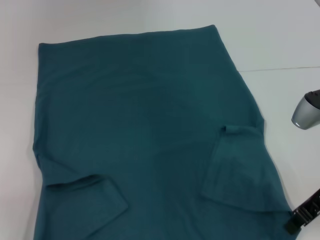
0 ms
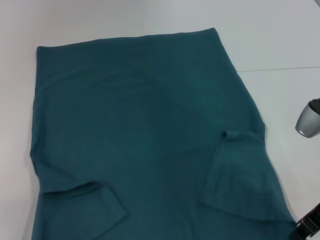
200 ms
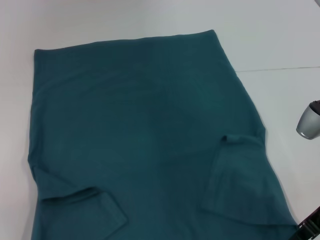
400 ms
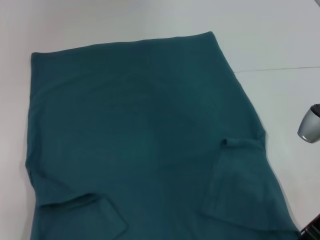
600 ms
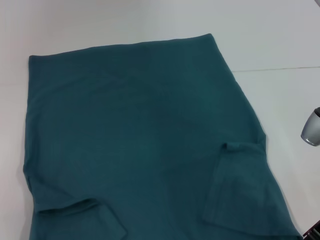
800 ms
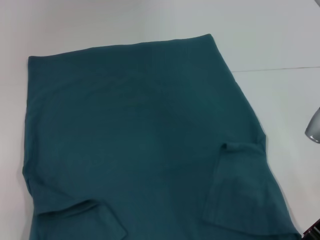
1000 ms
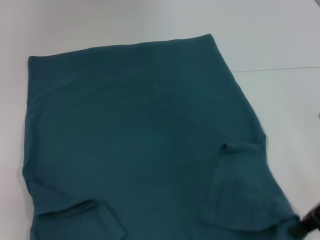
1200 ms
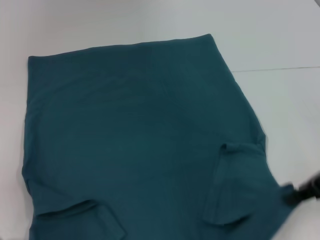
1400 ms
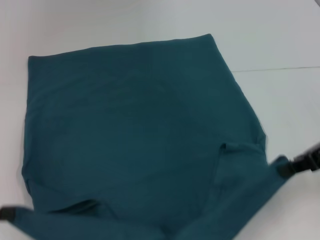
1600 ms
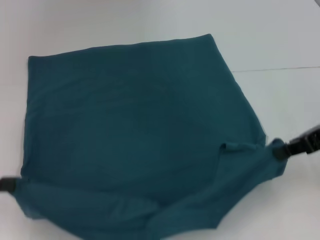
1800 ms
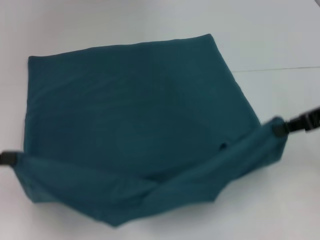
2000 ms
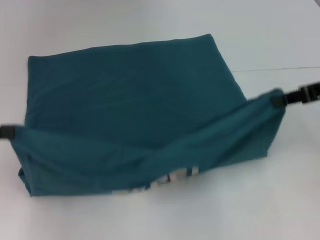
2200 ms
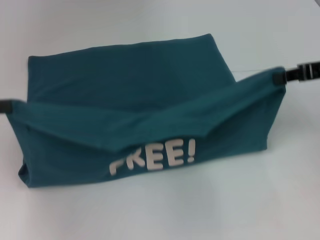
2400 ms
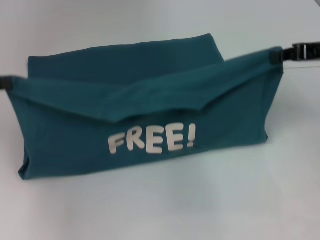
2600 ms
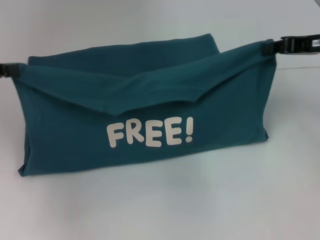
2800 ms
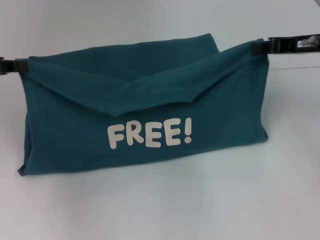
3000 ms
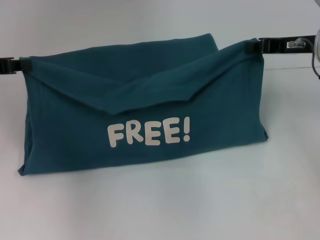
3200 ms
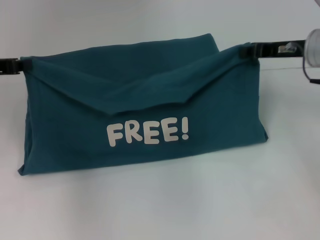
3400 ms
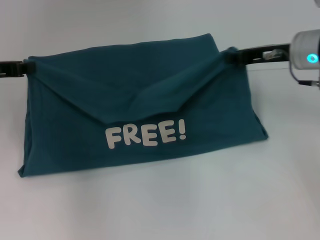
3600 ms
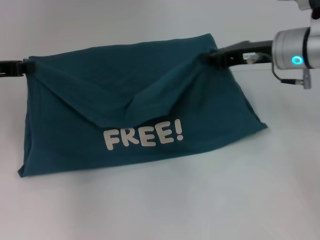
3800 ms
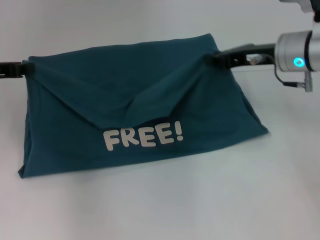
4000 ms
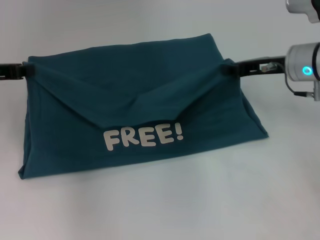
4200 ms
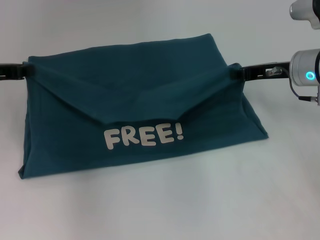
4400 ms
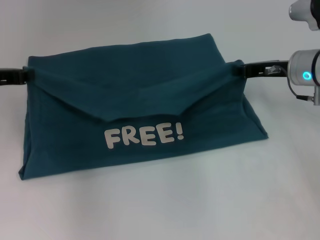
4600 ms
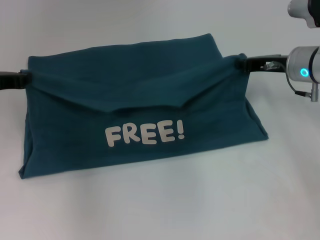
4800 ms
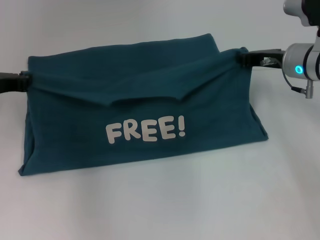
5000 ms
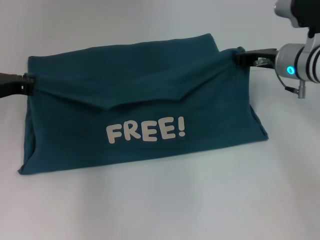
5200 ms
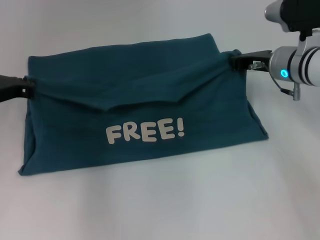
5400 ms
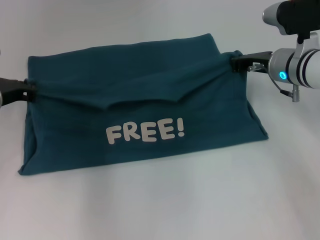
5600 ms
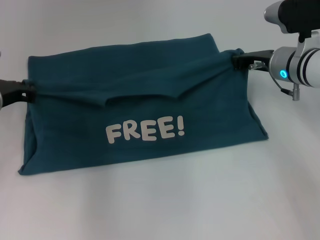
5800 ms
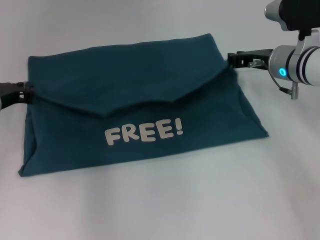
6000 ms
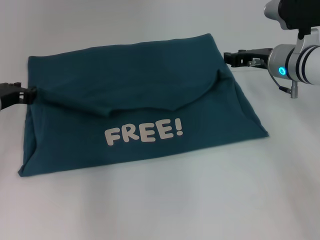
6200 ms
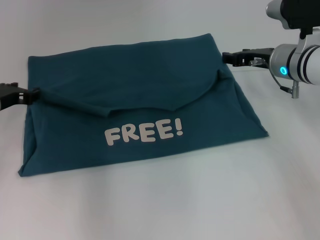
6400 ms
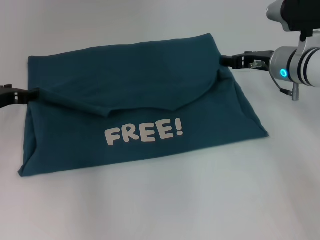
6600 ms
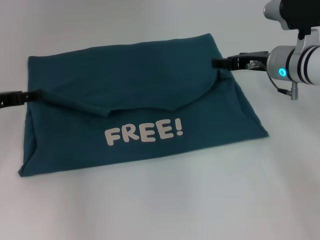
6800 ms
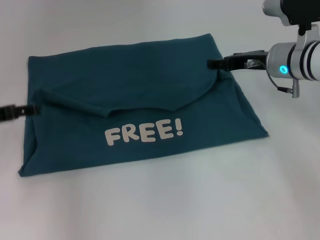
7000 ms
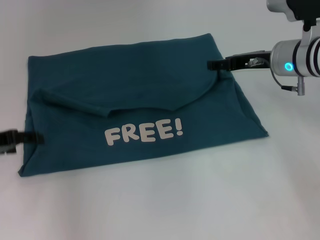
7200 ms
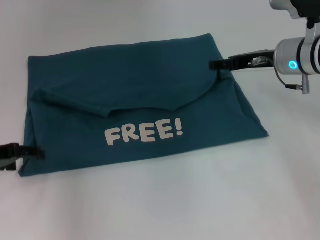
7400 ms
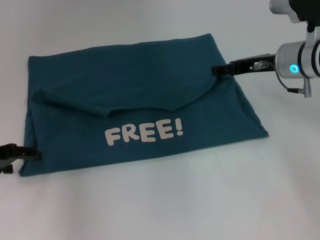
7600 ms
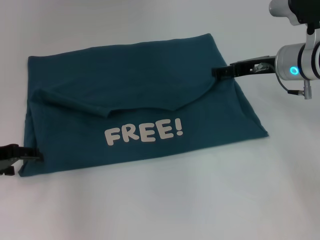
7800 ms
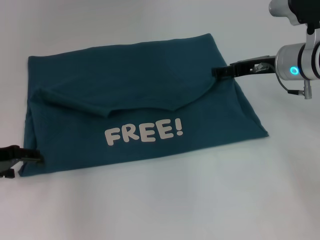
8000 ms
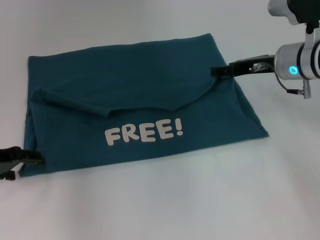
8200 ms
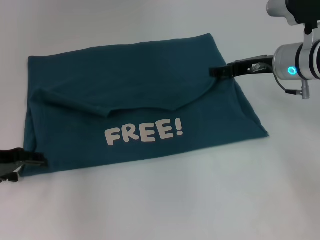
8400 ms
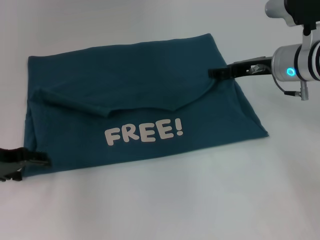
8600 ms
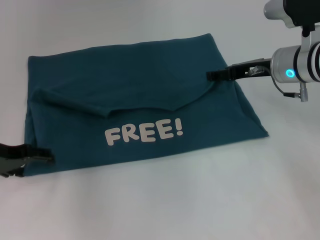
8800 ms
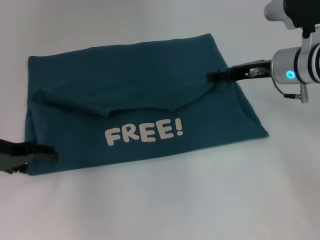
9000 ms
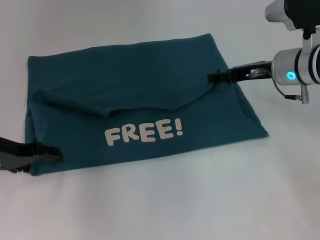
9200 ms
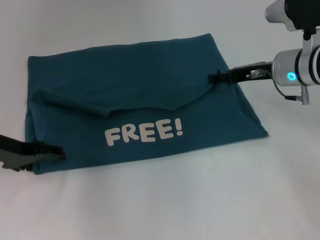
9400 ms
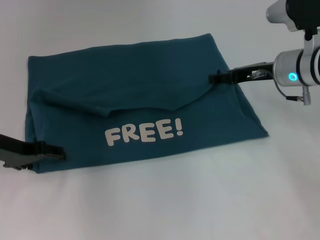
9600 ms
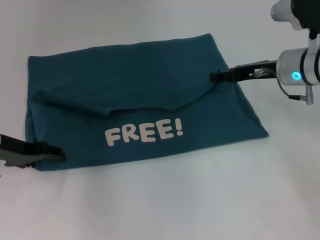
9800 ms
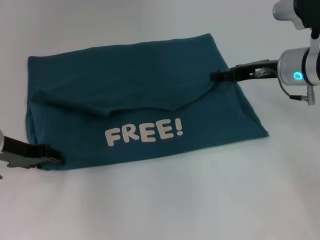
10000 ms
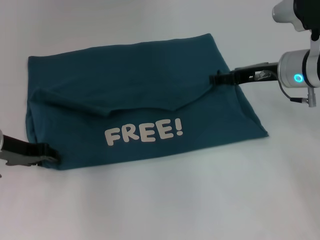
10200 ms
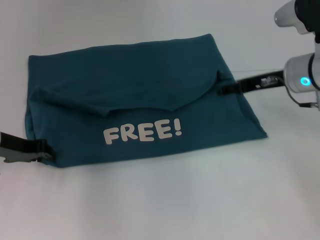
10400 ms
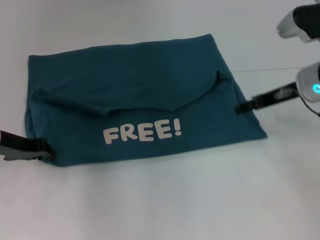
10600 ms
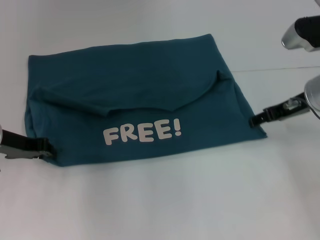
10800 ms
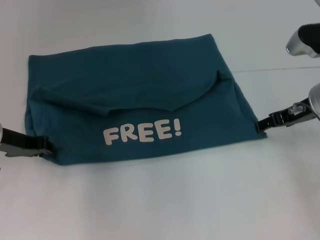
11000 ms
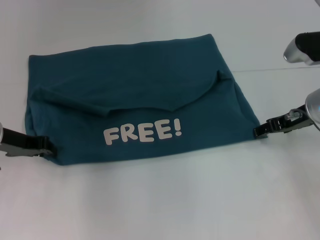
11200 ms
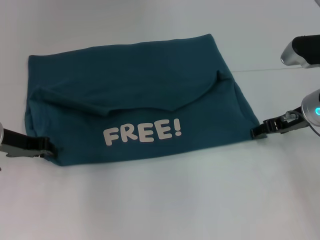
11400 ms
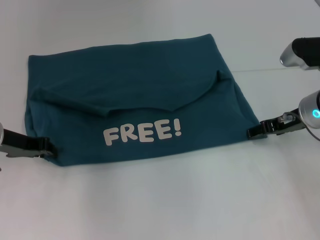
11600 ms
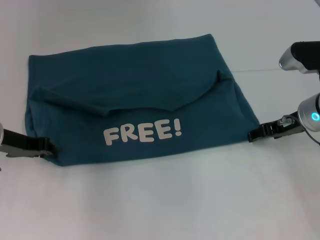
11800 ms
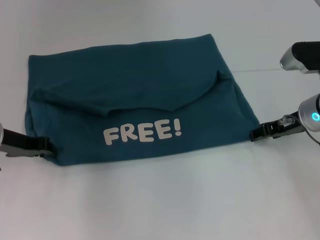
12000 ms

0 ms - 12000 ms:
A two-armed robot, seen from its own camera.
Step, 0 ms - 6800 ms: Fold the clothes to the left.
Step, 0 ms - 6800 ms: Fold the clothes to the right.
0 ms - 1600 ms: The grippers both shift upward by roughly 5 cm.
1600 ms - 3000 ms: The left gripper is displaced forward and upward by some 15 cm; the right gripper is displaced forward by some 10 cm.
3000 ms - 4400 ms: The right gripper moves downward, roughly 5 cm.
4400 ms - 6000 ms: The left gripper goes roughly 5 cm downward.
6000 ms - 7600 ms: The left gripper heads backward, covering roughly 5 cm, and opens its fingers; the right gripper opens its fingers.
7600 ms - 9000 ms: The grippers move only a little.
9000 ms - 10400 ms: The left gripper closes.
10400 ms - 12000 ms: The right gripper changes place by approximately 5 cm.

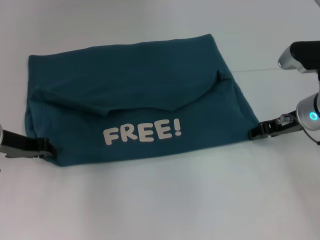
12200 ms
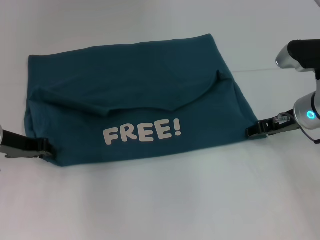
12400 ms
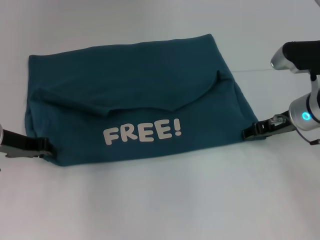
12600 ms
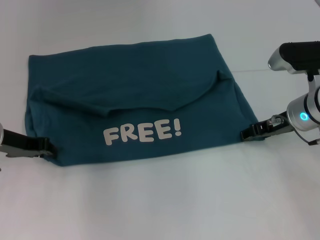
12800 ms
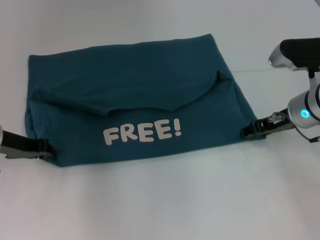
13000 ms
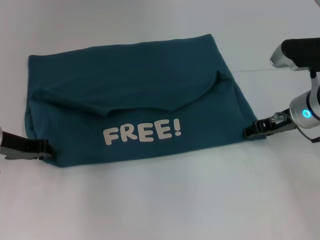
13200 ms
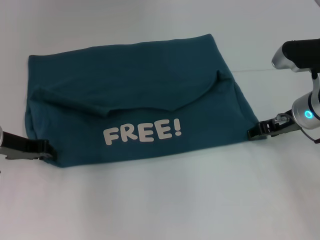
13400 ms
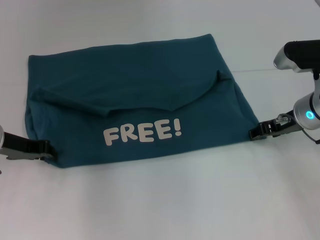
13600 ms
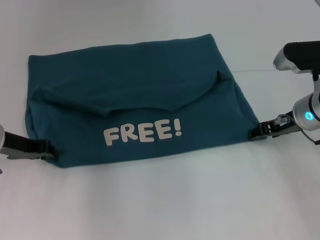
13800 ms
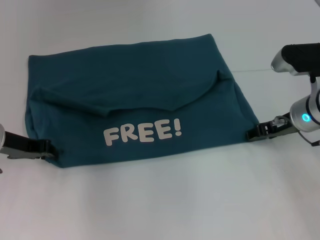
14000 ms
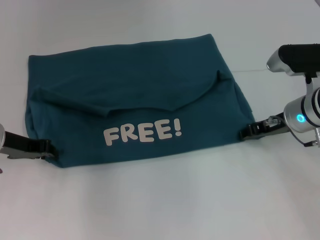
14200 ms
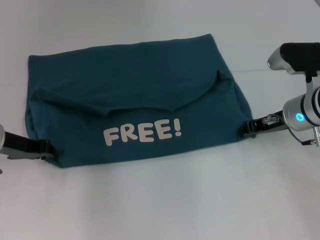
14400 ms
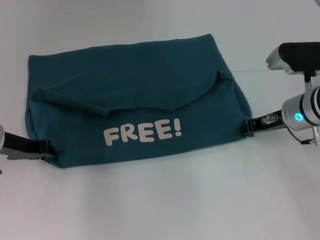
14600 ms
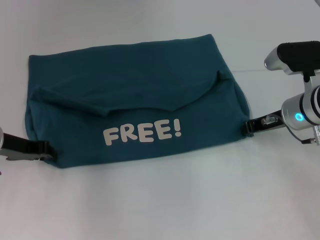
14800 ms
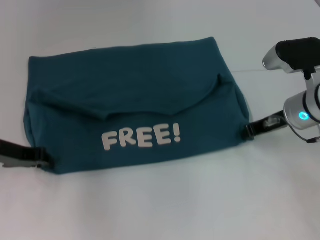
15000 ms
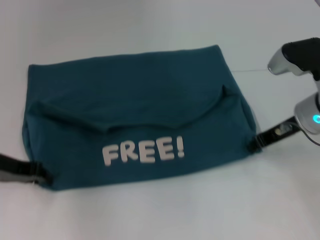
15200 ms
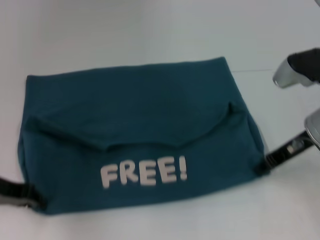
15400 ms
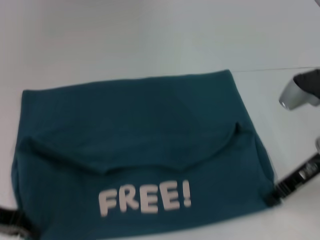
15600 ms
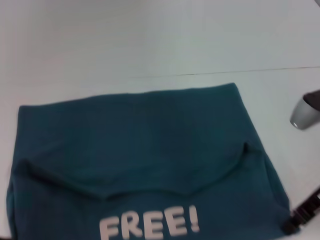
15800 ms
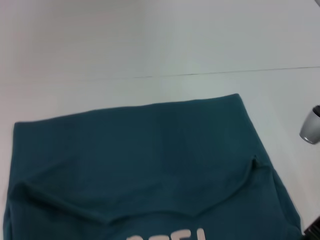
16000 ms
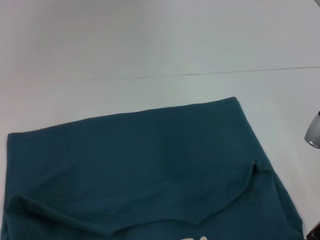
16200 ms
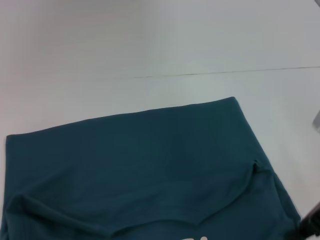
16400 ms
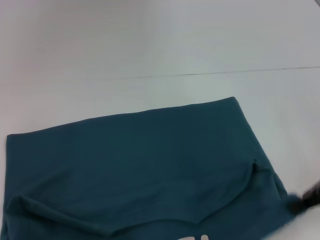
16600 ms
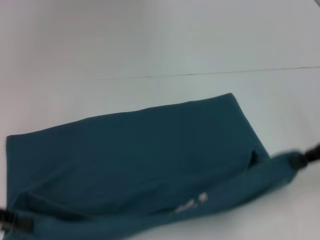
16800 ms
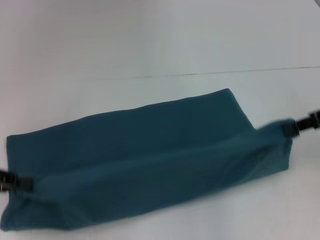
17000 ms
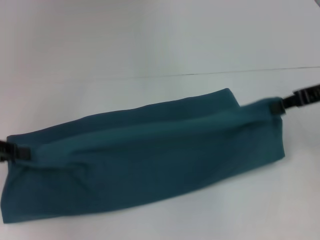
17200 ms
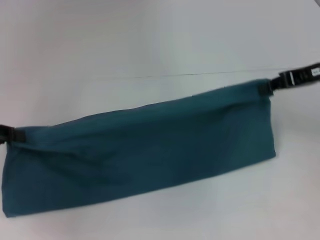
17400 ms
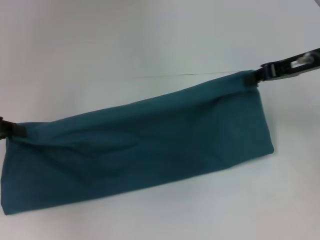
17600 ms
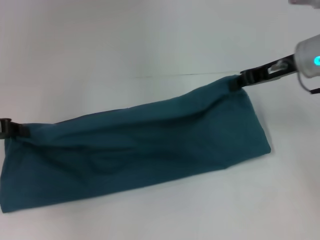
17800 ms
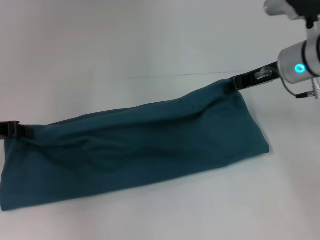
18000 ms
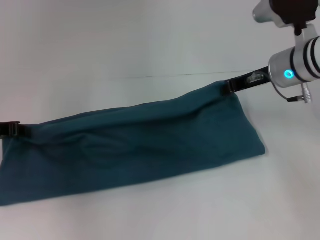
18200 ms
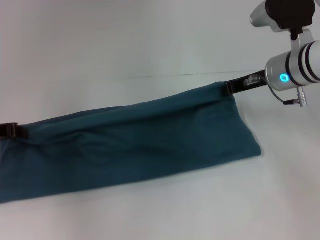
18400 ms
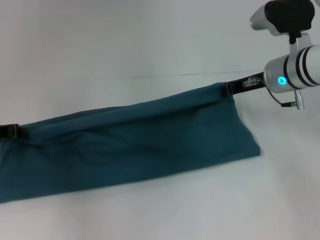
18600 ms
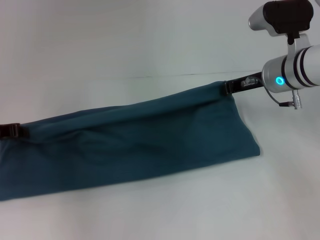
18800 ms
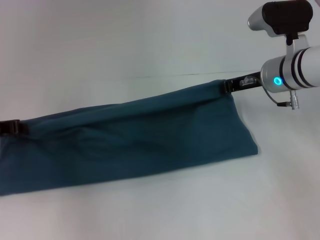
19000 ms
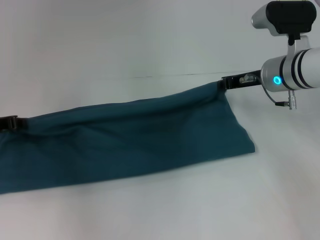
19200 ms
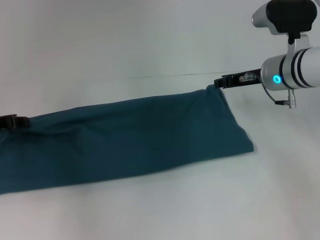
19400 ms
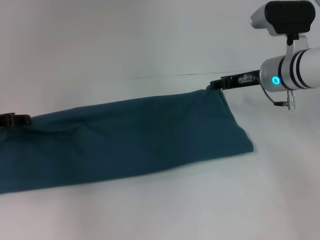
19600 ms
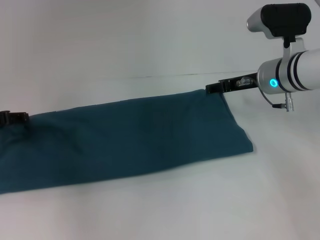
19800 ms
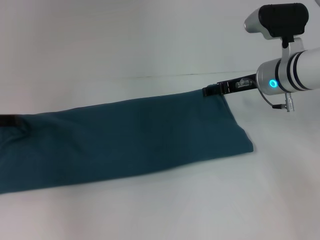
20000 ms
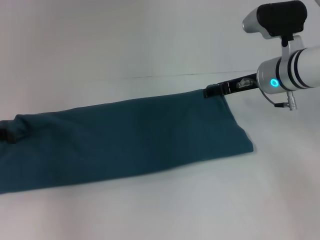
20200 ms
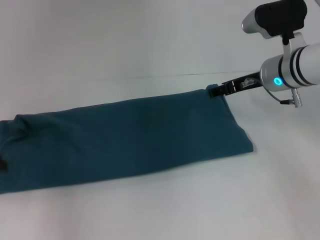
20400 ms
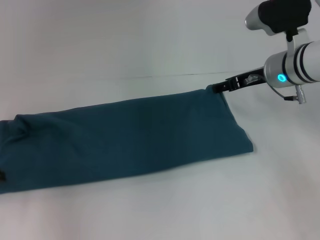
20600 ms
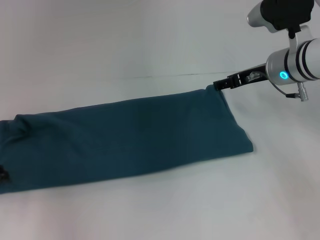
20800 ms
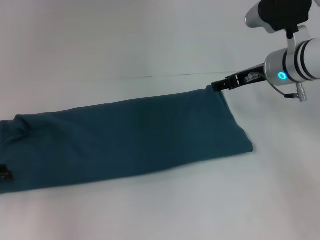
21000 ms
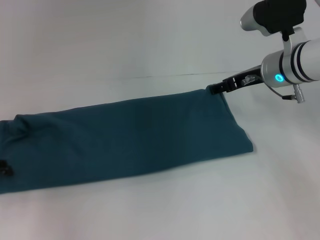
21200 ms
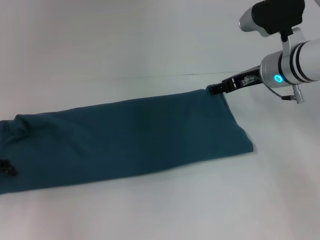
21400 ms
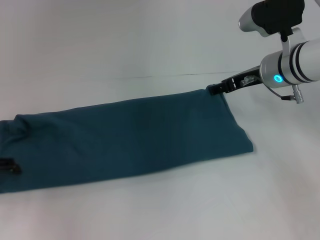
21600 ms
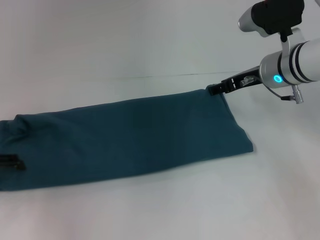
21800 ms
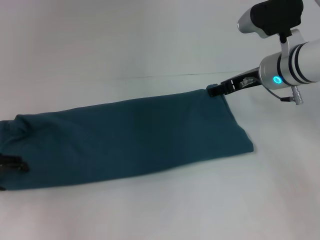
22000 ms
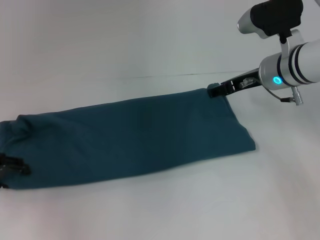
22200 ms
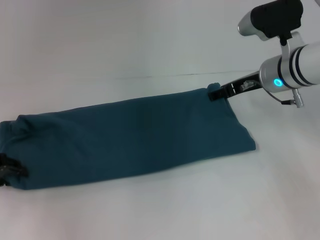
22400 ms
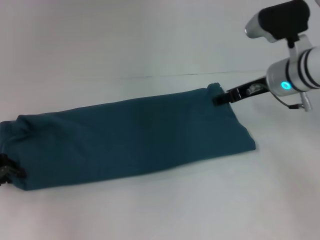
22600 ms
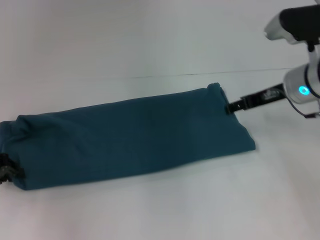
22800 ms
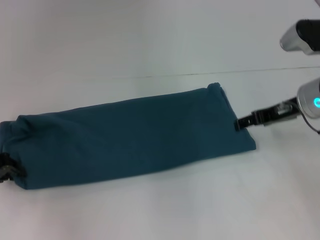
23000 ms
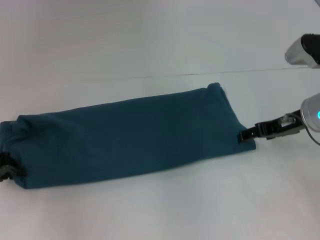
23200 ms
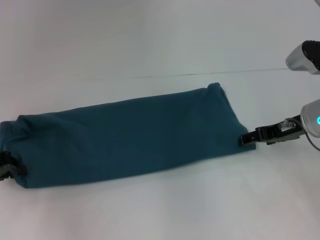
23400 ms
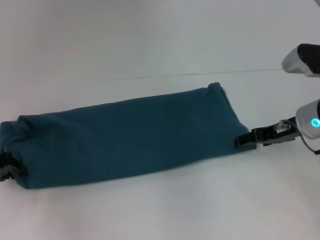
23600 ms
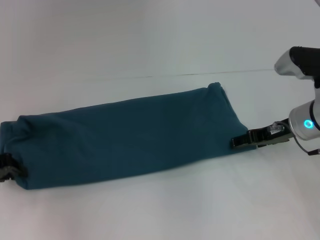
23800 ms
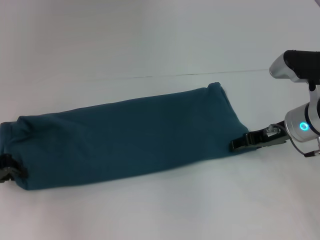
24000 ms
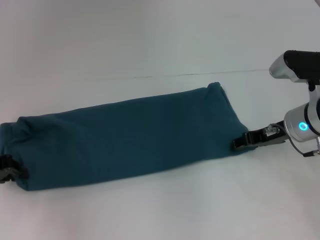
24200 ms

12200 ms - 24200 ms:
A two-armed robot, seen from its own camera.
Step, 12200 ms - 15400 ms: Pull the clothes with your left hand.
Step, 12200 ms - 15400 ms: Pull the clothes with your right hand.
Step, 15600 ms - 20600 ms: Fold the clothes to the left.
Step, 15600 ms - 20600 ms: Fold the clothes to the right.
12200 ms - 13800 ms: The two grippers keep their place.
13800 ms - 15200 ms: The right gripper closes.
15200 ms - 16600 ms: The left gripper travels backward and to the left by about 10 cm. Meanwhile the right gripper goes about 10 cm backward and to the right.
16600 ms - 18200 ms: The right gripper shifts approximately 15 cm forward and to the left. Meanwhile the left gripper heads forward, covering approximately 15 cm.
18200 ms - 19800 ms: The left gripper opens its fingers; the right gripper opens.
19800 ms - 21200 ms: The right gripper opens up. Meanwhile the left gripper goes approximately 5 cm backward.
21200 ms - 22600 ms: The left gripper closes up.
22600 ms - 24200 ms: The right gripper moves about 5 cm; the left gripper closes.
